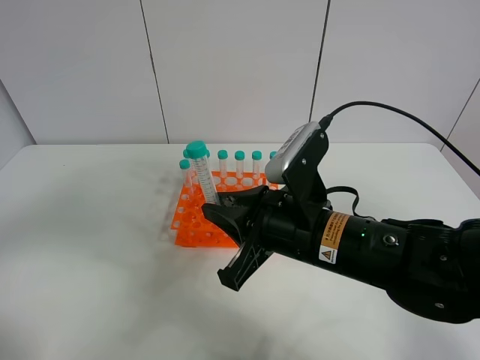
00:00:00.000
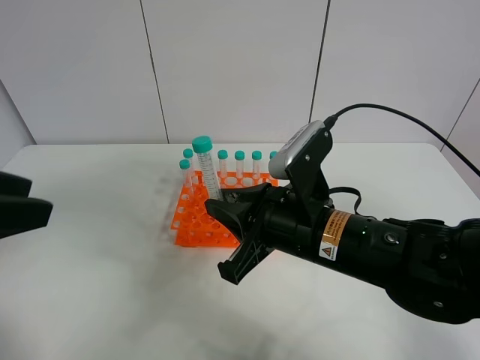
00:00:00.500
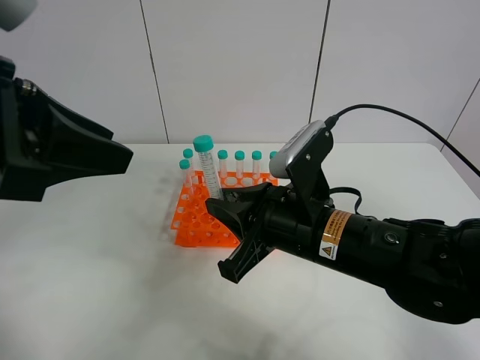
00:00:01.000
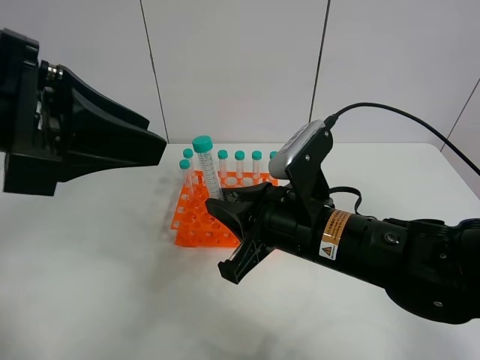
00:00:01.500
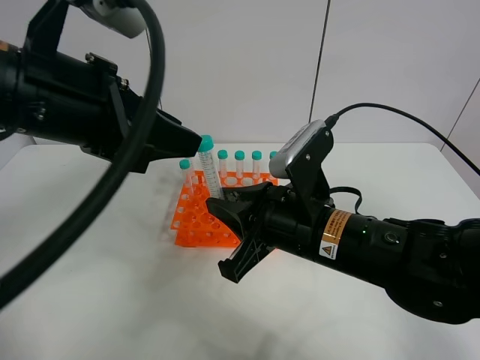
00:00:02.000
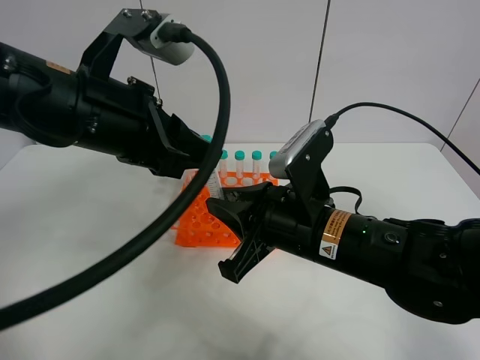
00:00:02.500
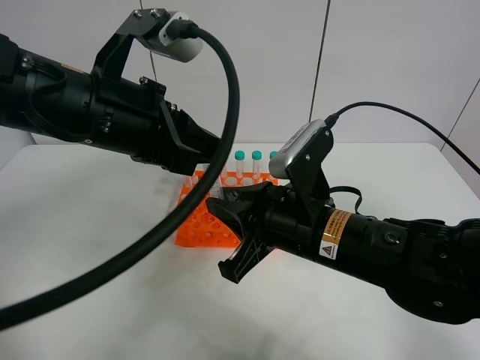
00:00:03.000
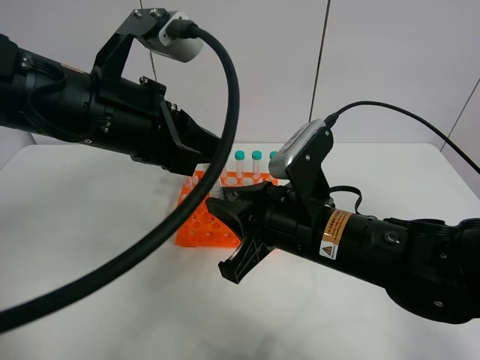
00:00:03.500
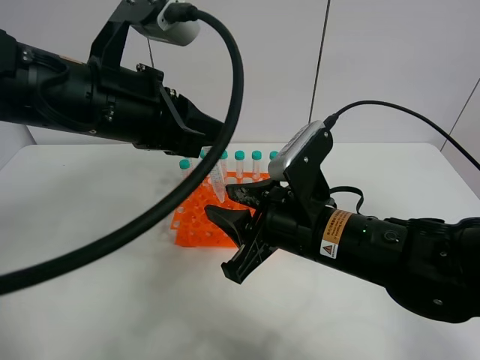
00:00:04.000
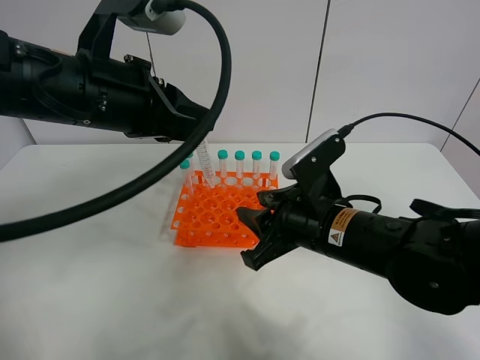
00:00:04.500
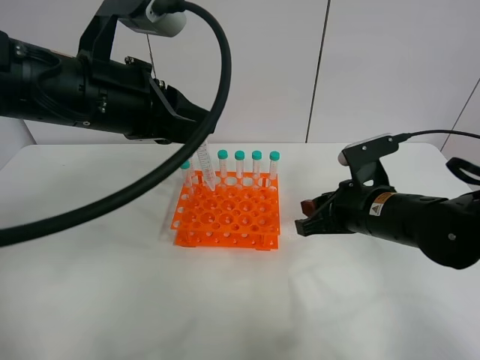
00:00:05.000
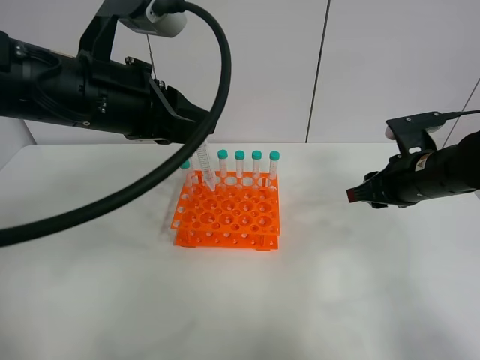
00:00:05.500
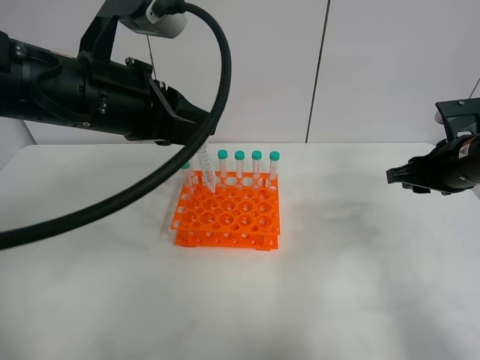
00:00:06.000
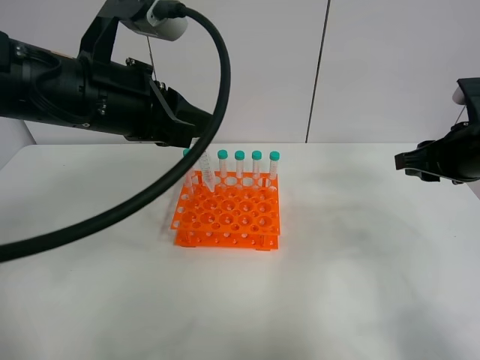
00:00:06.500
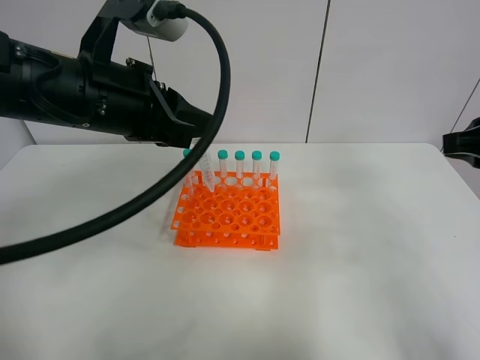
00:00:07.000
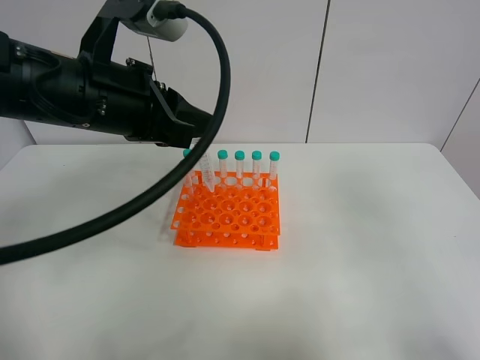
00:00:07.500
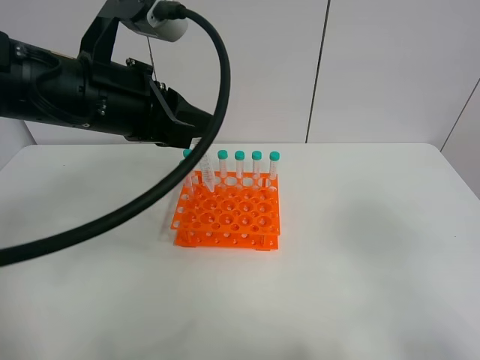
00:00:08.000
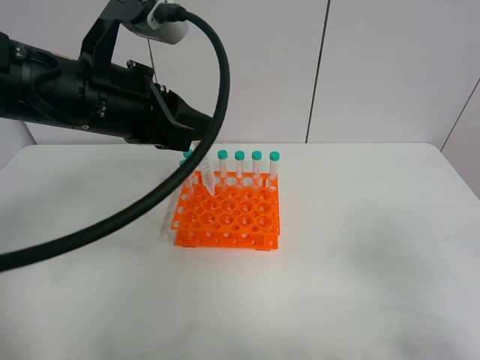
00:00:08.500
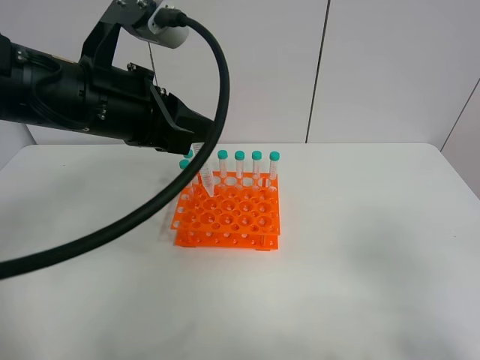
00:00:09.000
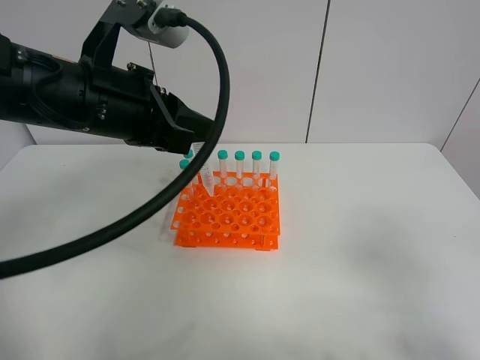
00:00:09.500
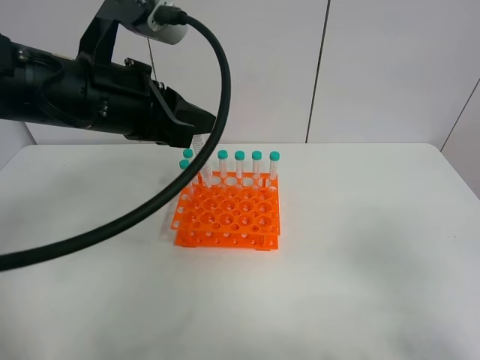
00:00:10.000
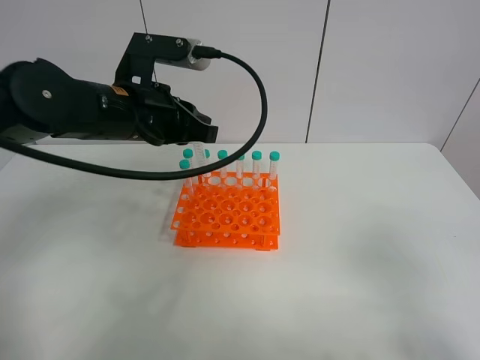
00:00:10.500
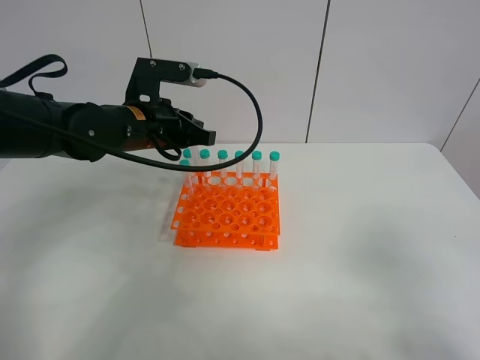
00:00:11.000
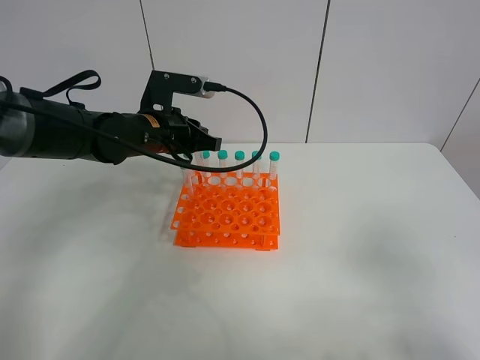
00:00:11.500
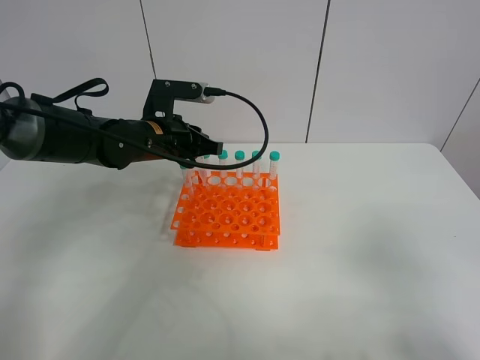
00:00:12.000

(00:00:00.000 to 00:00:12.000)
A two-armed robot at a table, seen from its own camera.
Task of the whole recording: Put the test tube on the table back onto the test tube rack.
Step, 00:00:00.000 - 00:00:03.500: Move the test tube from the right gripper to the left gripper.
00:00:00.000 - 00:00:02.000: The left gripper shifts roughly 20 cm forward and to the right.
00:00:02.000 - 00:00:04.000: The left gripper closes; the right gripper opens up.
00:00:04.000 - 00:00:06.000: The right gripper travels to the right and forward by some 25 cm.
00:00:06.000 - 00:00:08.000: The right gripper is displaced backward and upward by some 30 cm.
00:00:08.000 - 00:00:10.000: The right gripper travels downward by approximately 5 cm.
00:00:10.000 - 00:00:12.000: The left gripper heads downward and forward, covering about 15 cm.

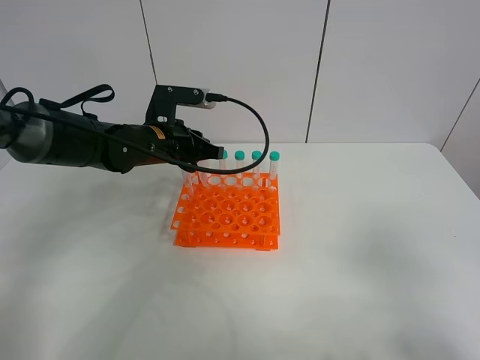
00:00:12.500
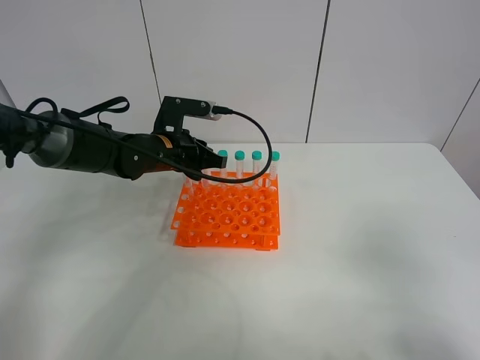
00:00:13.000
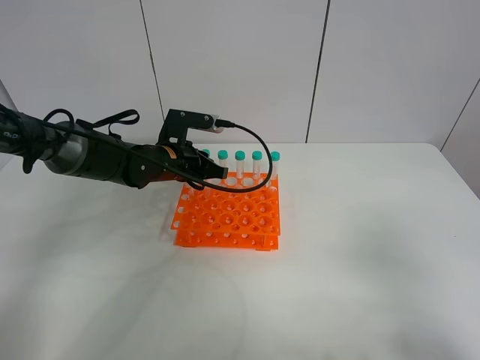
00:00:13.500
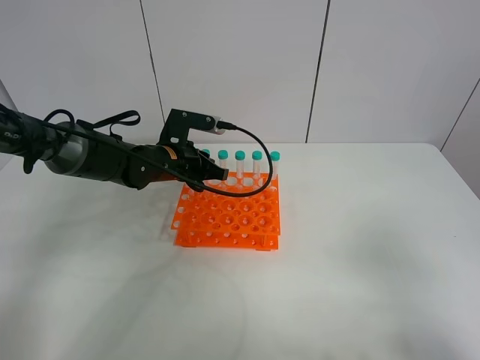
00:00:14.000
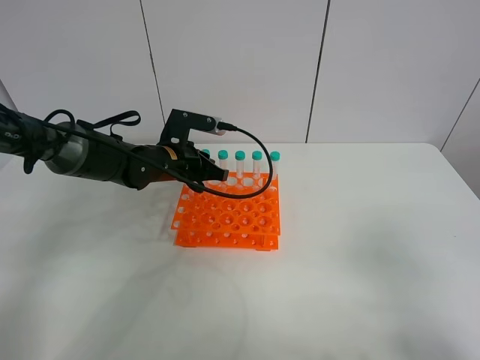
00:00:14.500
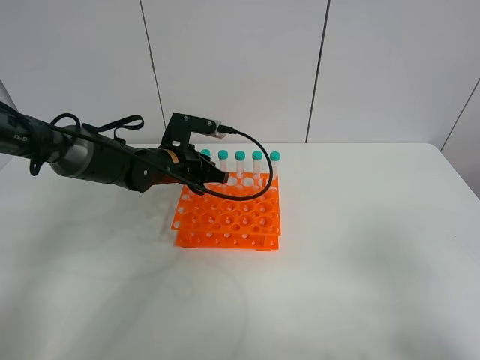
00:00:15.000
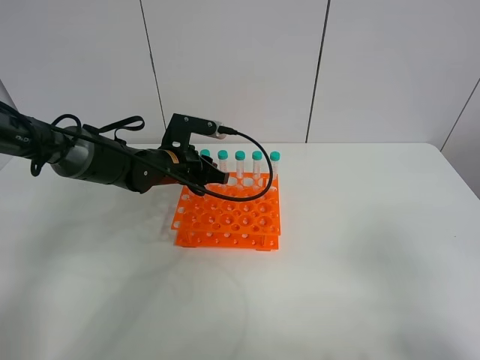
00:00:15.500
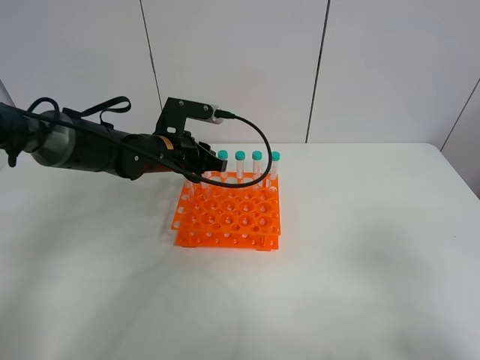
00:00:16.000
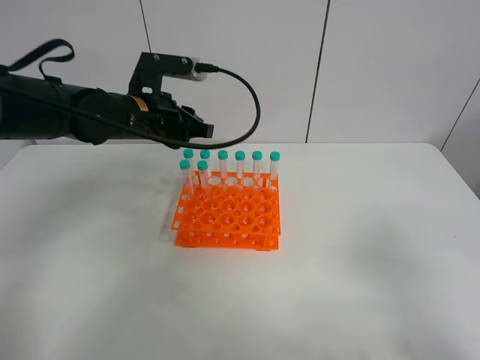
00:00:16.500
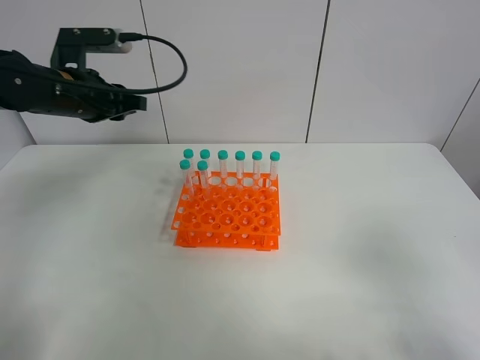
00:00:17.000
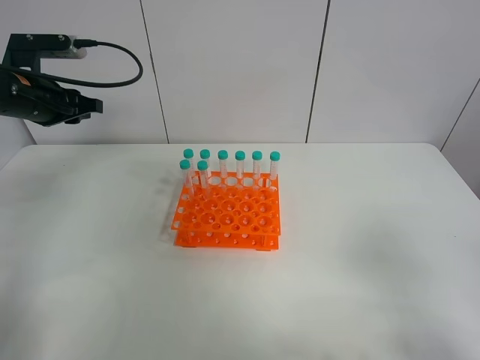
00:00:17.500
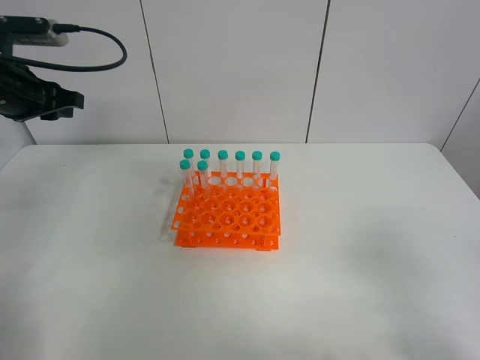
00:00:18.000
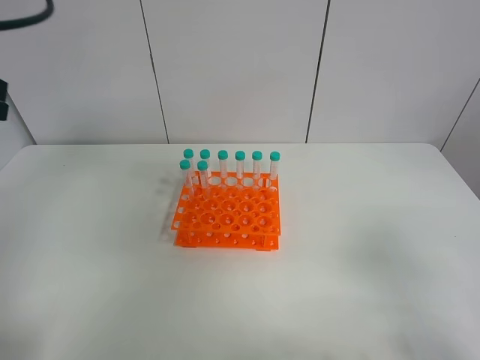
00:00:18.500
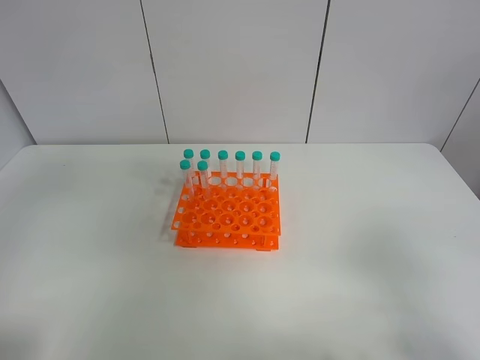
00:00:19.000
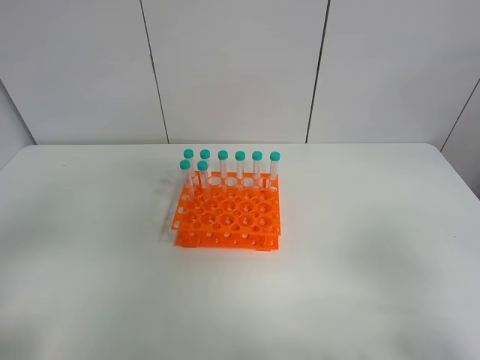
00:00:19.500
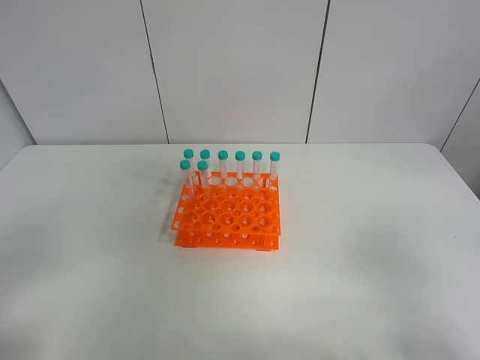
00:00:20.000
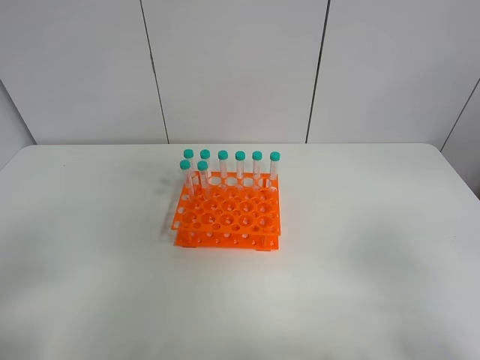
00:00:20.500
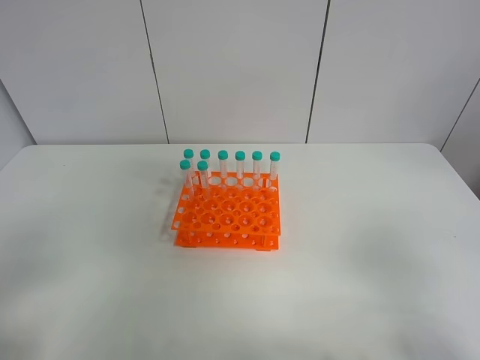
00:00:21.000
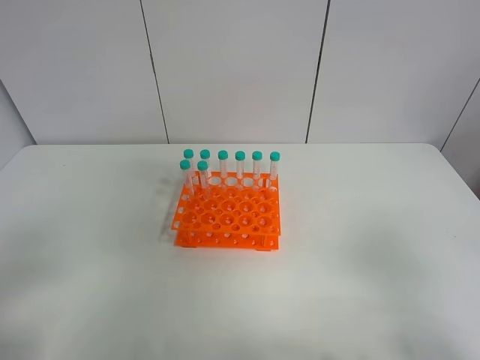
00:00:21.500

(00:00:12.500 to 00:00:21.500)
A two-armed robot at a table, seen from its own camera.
Task of the whole recording: Put the test tube on the table back onto the test tube rack.
Step, 00:00:12.500 - 00:00:15.500: Place the test tube on the test tube rack with the left gripper.
00:00:12.500 - 00:00:14.500: The grippers move only a little.
00:00:14.500 - 00:00:17.000: The left gripper goes about 20 cm upward and to the left, and opens its fingers.
00:00:17.000 - 00:00:19.500: The left gripper heads backward, covering about 35 cm.

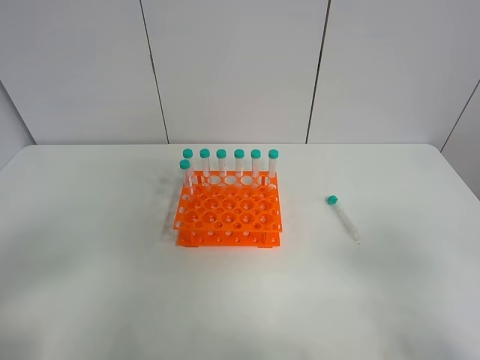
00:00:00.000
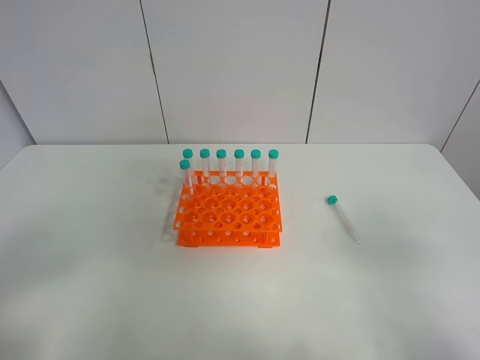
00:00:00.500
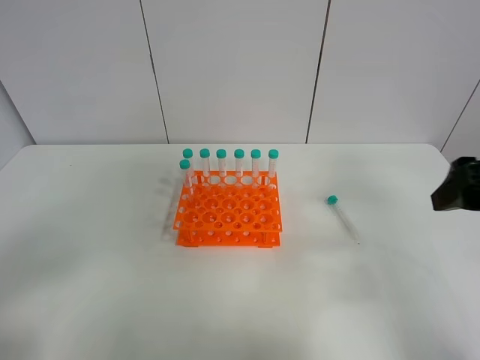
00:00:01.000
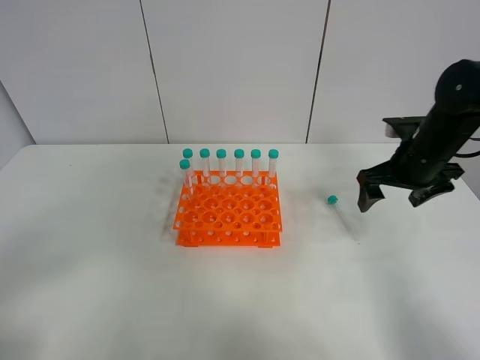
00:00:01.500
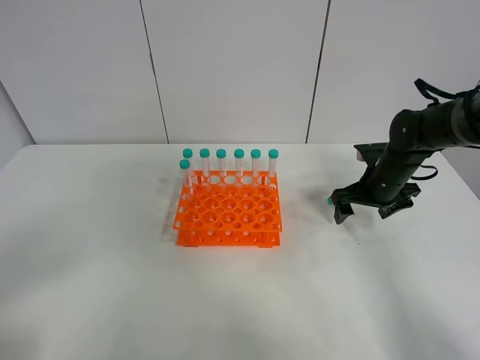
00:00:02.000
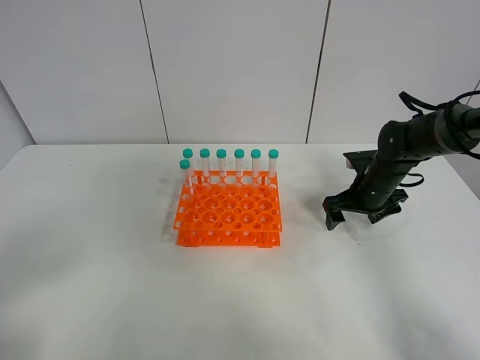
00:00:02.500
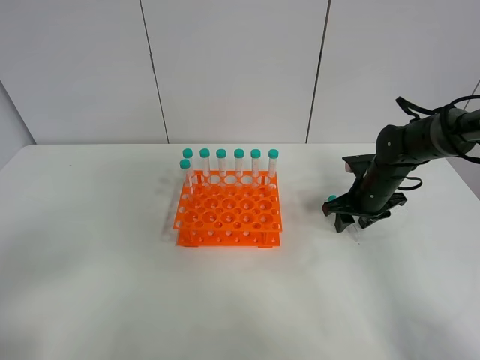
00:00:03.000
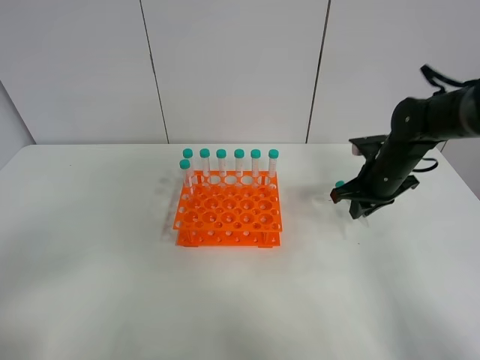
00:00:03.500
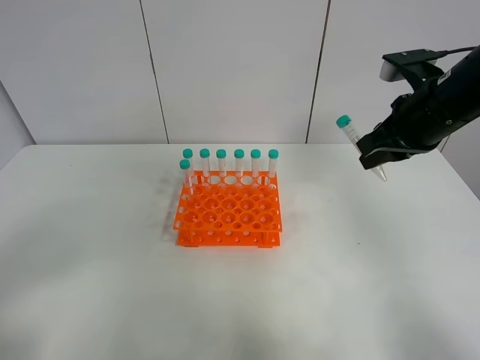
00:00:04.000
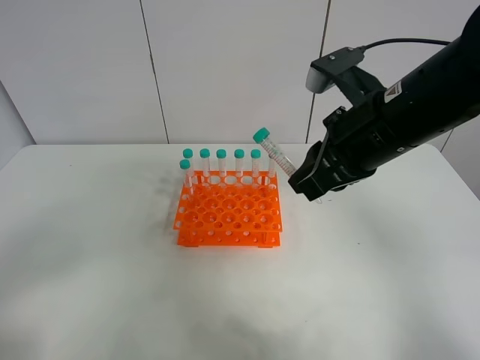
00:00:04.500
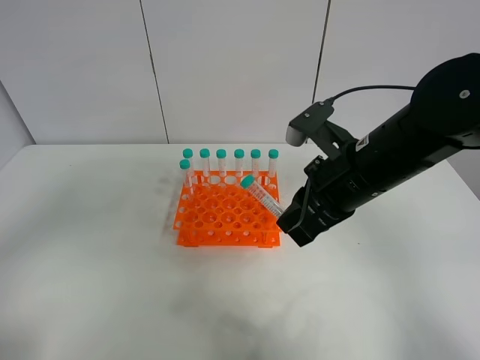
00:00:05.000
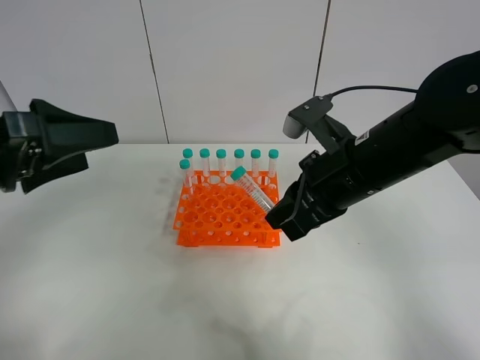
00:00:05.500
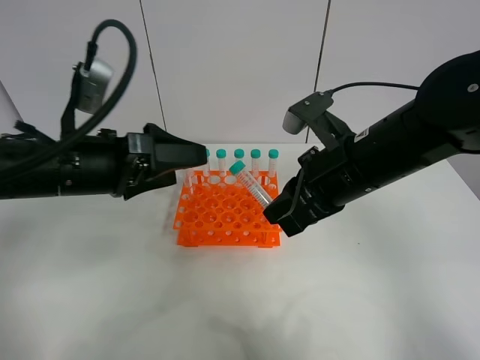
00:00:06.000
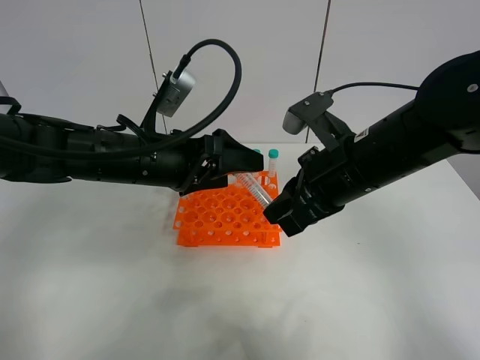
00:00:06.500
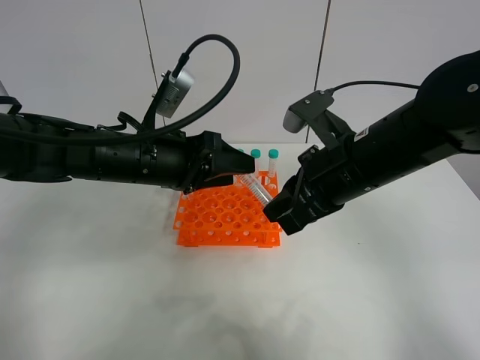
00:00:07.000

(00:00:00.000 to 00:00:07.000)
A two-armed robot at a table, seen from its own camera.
Task of the whole recording: Put the test tube on the table back onto the test tube rack.
Step, 00:00:00.000 - 00:00:03.500: Pick up the test tube with the right gripper.
00:00:00.000 - 00:00:02.000: The right gripper shifts some 40 cm forward and downward.
00:00:02.000 - 00:00:03.500: The right gripper closes.
00:00:03.500 - 00:00:05.000: The left gripper goes approximately 10 cm forward and upward. The right gripper travels backward, to the left and upward by about 20 cm.
00:00:05.000 - 00:00:07.000: The left gripper goes some 30 cm forward, to the right and downward, and closes its fingers.
